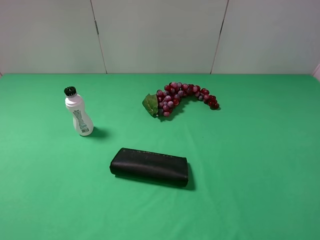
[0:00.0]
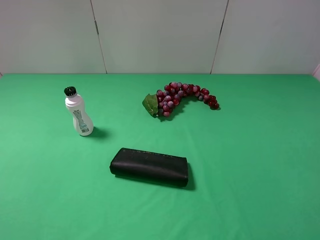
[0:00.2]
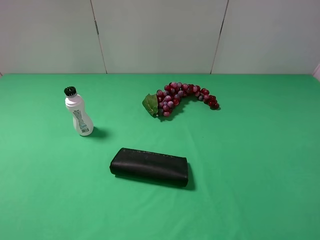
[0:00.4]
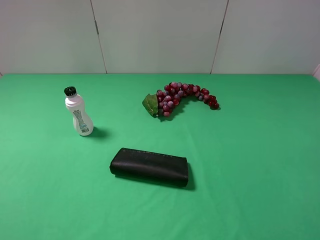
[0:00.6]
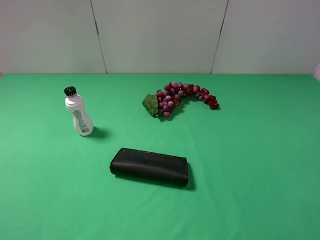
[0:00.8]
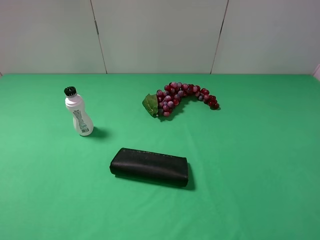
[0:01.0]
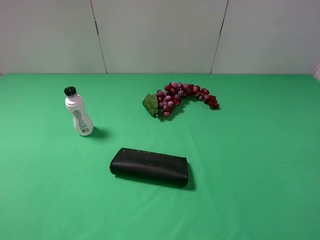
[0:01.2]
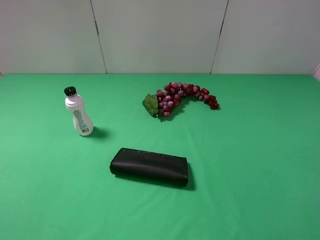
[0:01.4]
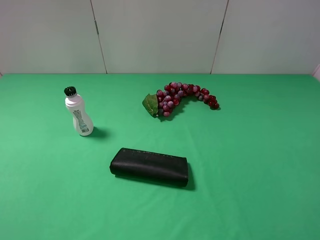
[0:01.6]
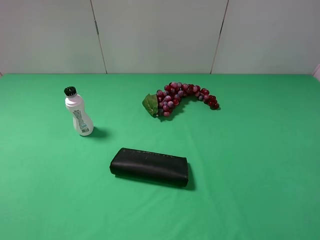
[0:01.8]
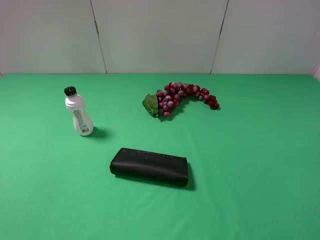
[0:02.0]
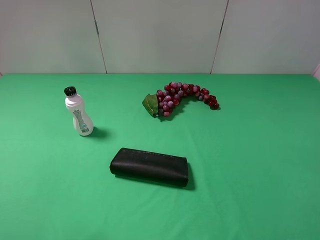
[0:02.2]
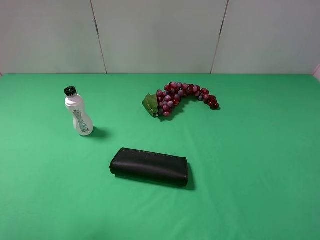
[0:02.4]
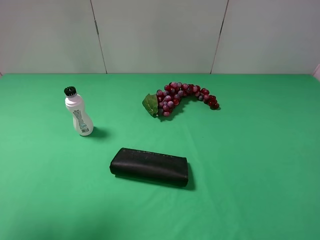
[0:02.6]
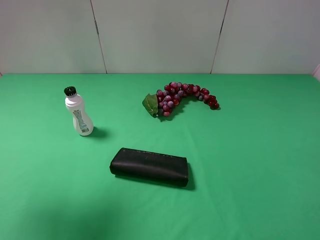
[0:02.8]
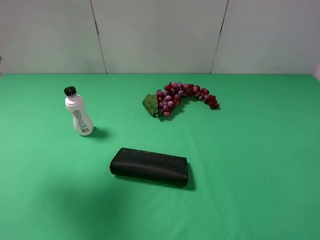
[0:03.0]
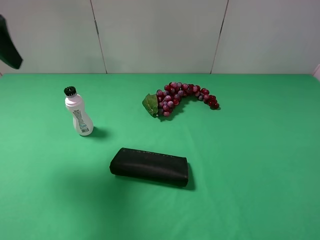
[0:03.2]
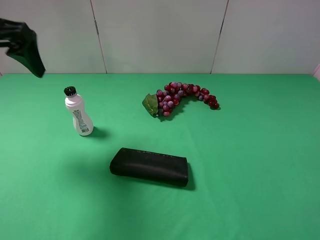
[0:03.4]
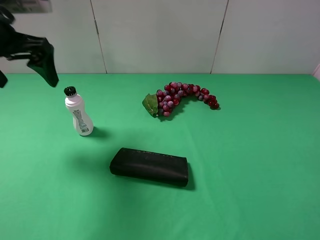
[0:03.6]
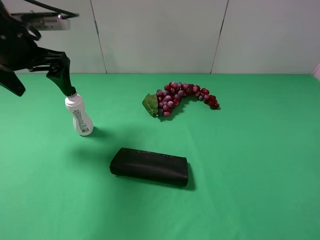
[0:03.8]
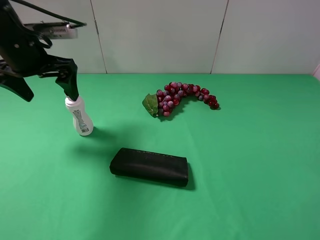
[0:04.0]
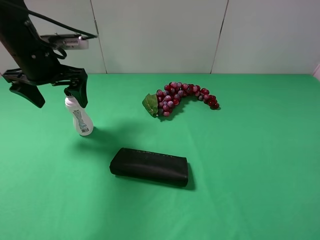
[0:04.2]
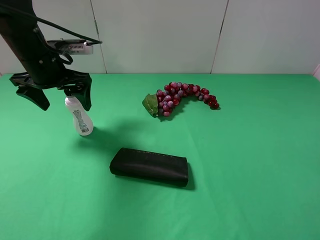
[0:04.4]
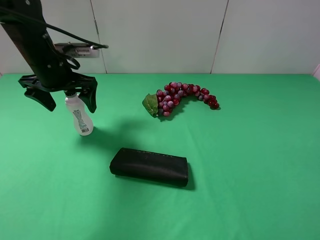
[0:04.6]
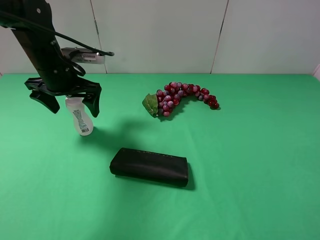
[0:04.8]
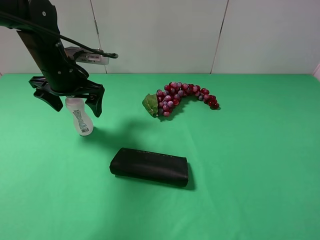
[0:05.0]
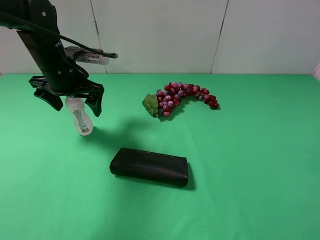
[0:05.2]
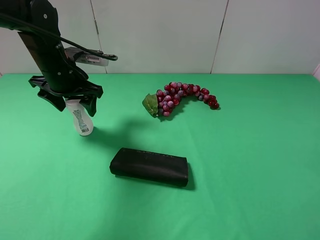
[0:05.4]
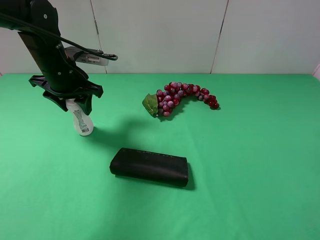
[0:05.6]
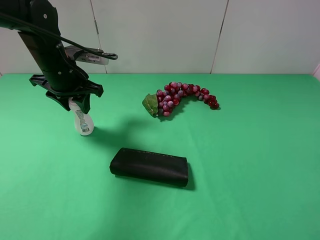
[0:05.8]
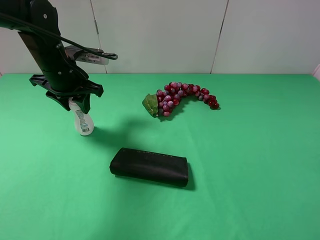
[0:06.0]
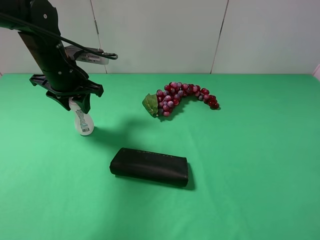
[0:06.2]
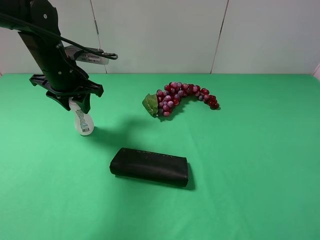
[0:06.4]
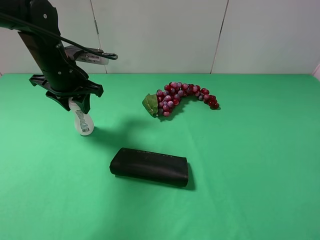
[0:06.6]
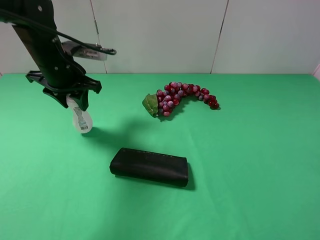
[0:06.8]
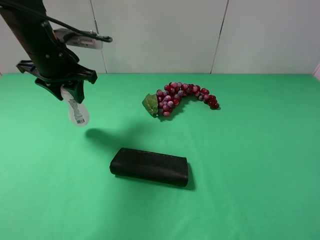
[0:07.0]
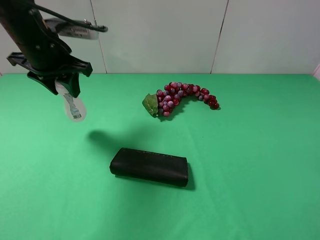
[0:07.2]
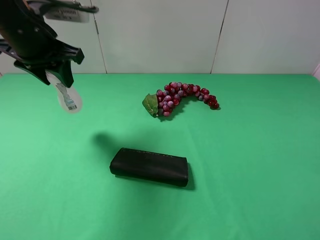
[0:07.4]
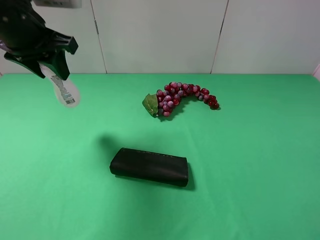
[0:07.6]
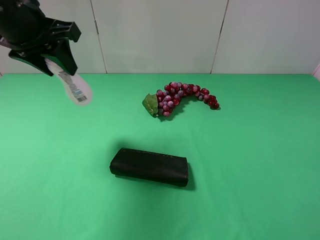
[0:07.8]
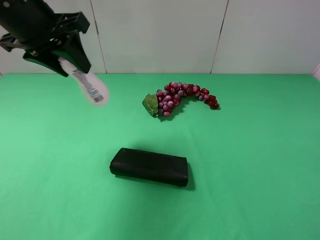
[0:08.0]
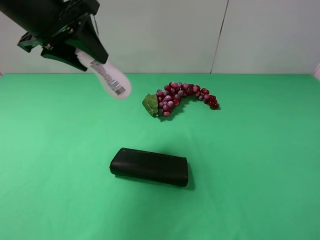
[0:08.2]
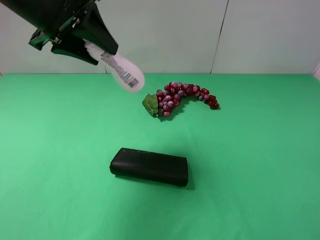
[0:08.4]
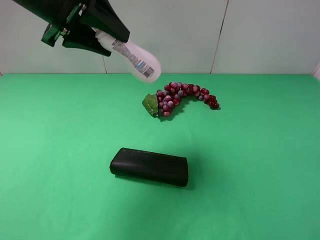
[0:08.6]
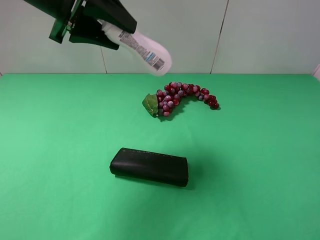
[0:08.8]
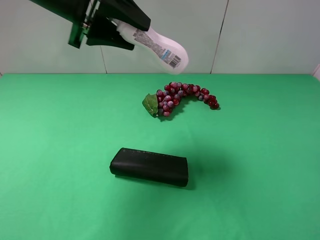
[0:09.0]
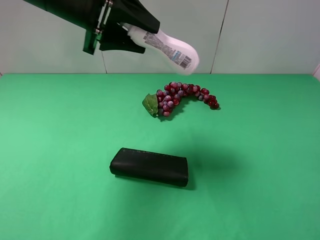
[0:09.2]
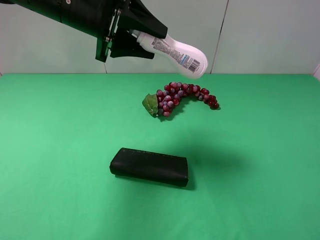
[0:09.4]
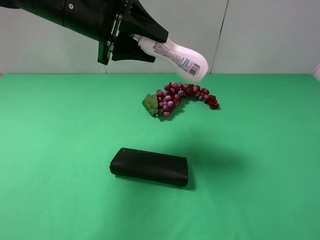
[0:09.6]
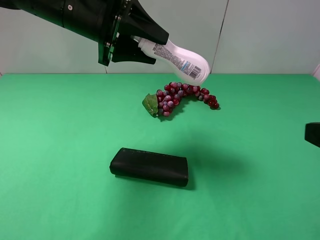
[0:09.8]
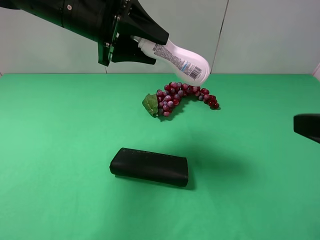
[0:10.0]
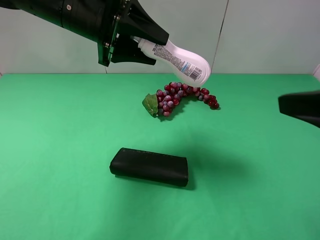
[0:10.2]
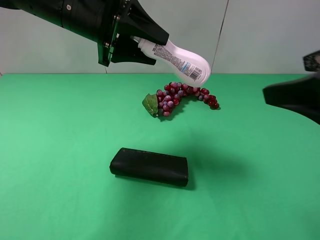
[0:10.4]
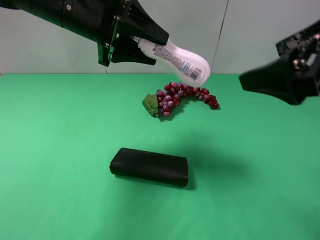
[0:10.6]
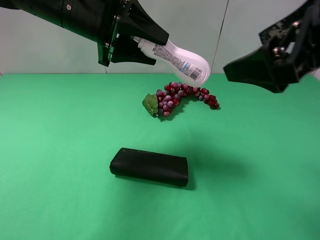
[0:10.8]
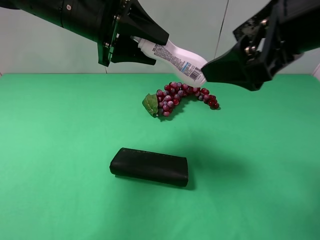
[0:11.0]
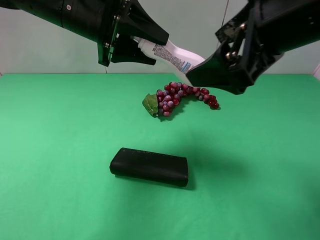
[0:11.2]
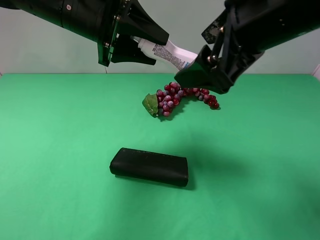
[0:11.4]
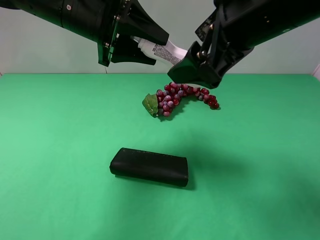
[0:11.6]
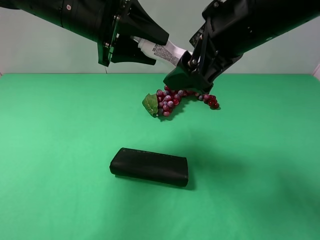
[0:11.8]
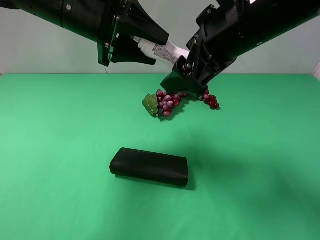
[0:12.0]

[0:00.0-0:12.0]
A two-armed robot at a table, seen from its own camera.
Task of the whole recording: use the left gripper to pick up the item and transfer it from the left gripper to the right gripper.
Step, 0:00.0 to 0:05.6: Use the left gripper to grab the cleaning agent on the left side of the table.
0:00.0 to 0:01.6: Neither gripper changes place.
0:01.6 to 0:03.0: The left gripper shifts roughly 20 cm forward.
0:03.0 to 0:04.4: The left gripper travels downward, forward and to the right by approximately 20 cm.
0:04.4 to 0:06.0: The left gripper closes up.
0:06.0 to 0:07.6: The left gripper goes roughly 15 cm upward and backward.
0:07.6 to 0:09.0: The left gripper is displaced to the right by roughly 5 cm.
0:09.0 to 0:10.4: The right gripper is displaced forward, to the left and upward by approximately 15 cm.
0:10.4 to 0:12.0: The right gripper heads to the left and forward, covering about 15 cm.

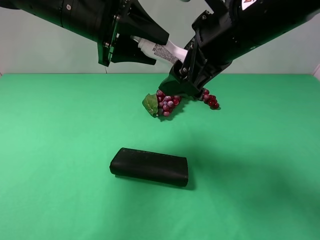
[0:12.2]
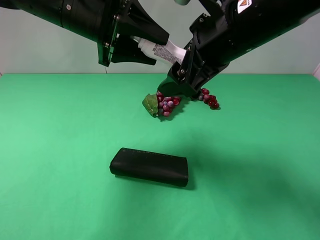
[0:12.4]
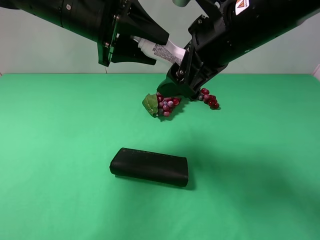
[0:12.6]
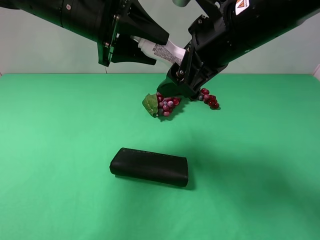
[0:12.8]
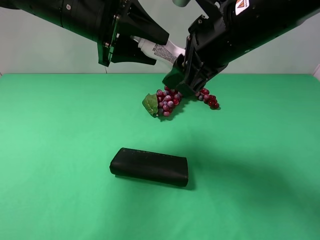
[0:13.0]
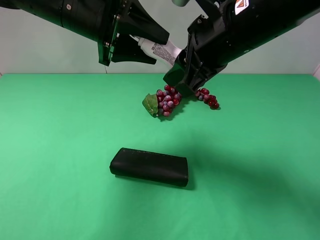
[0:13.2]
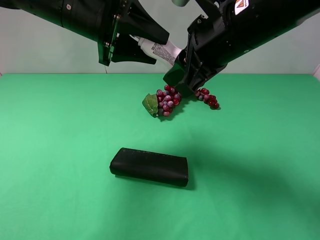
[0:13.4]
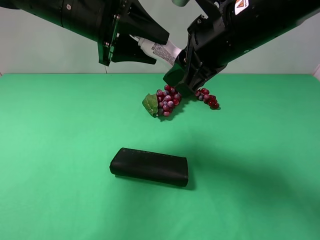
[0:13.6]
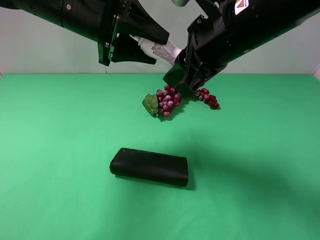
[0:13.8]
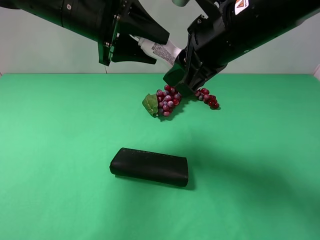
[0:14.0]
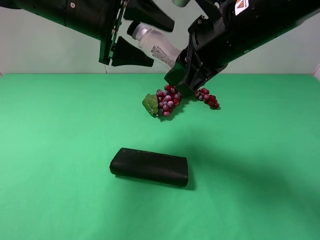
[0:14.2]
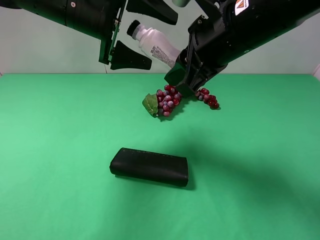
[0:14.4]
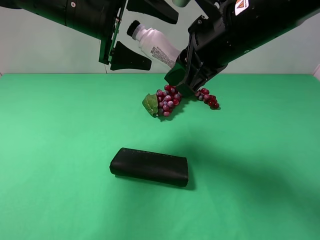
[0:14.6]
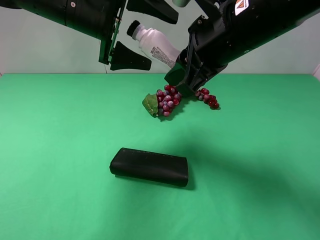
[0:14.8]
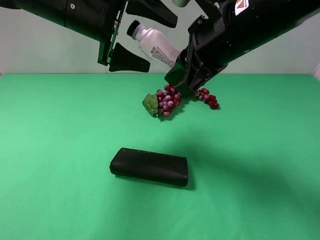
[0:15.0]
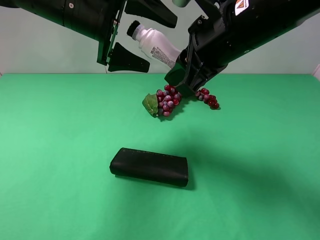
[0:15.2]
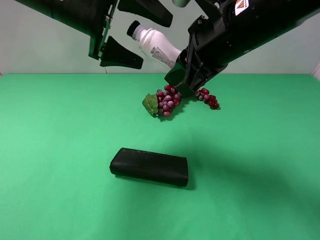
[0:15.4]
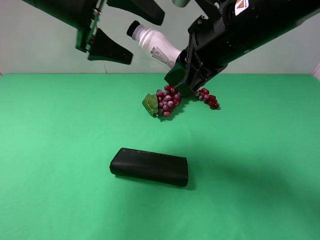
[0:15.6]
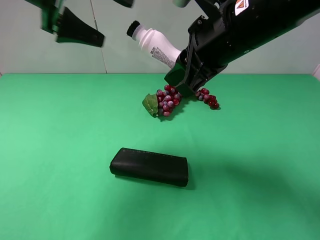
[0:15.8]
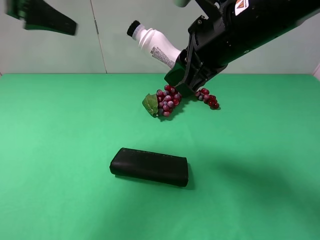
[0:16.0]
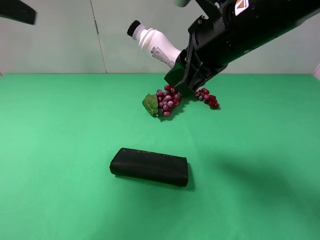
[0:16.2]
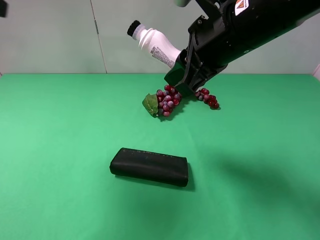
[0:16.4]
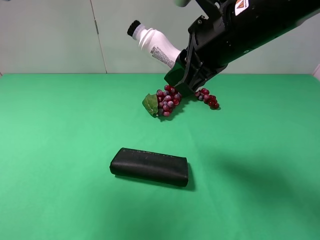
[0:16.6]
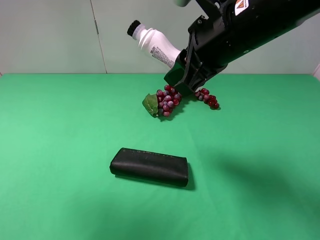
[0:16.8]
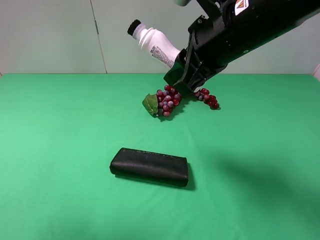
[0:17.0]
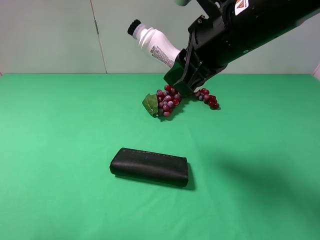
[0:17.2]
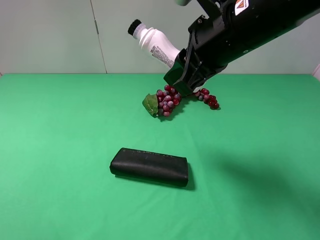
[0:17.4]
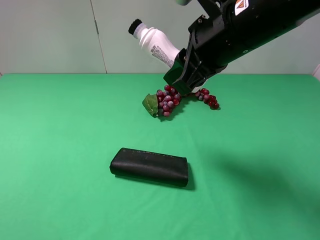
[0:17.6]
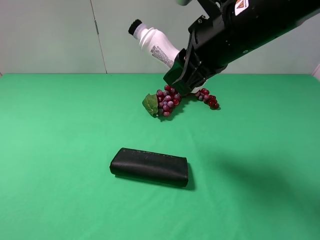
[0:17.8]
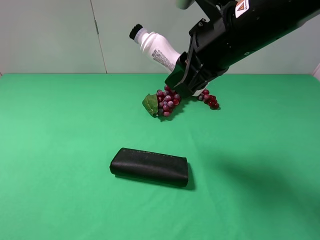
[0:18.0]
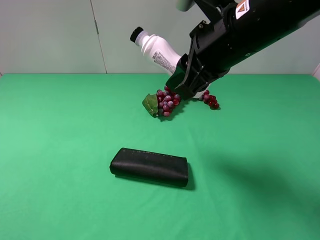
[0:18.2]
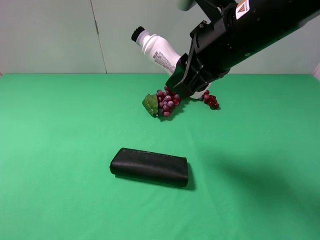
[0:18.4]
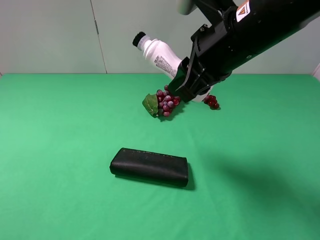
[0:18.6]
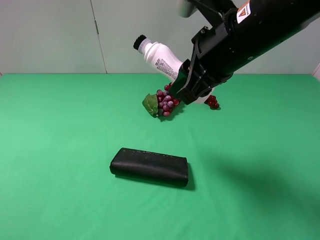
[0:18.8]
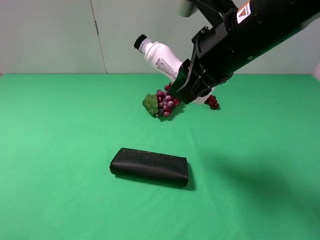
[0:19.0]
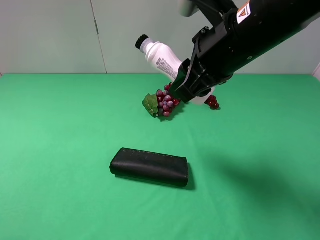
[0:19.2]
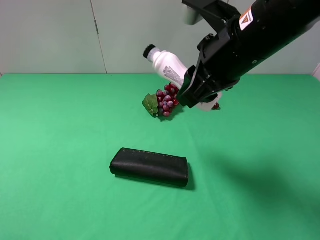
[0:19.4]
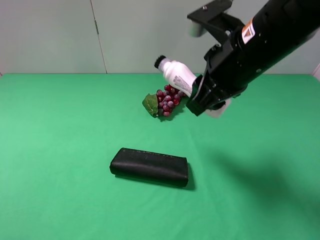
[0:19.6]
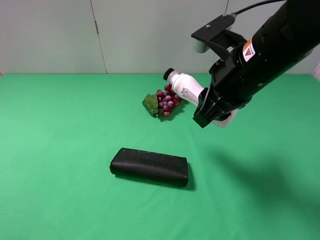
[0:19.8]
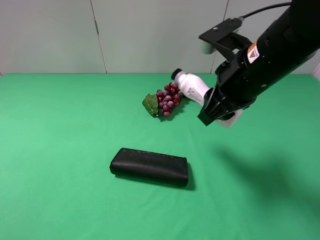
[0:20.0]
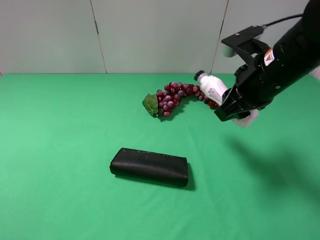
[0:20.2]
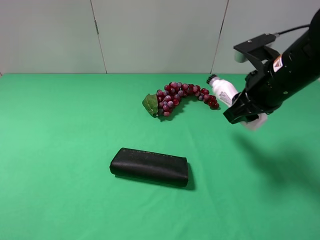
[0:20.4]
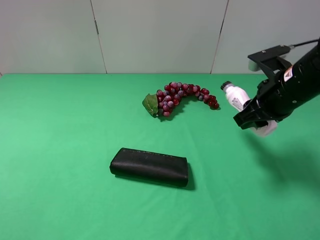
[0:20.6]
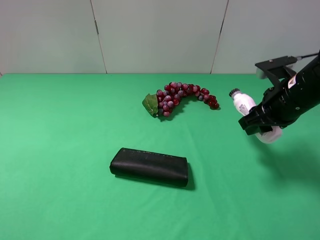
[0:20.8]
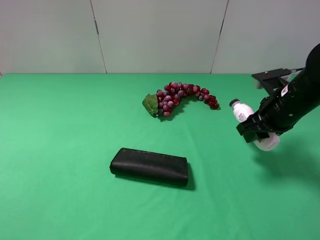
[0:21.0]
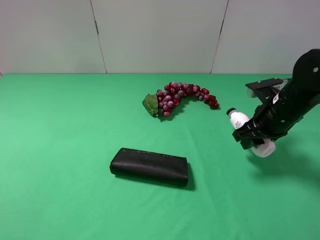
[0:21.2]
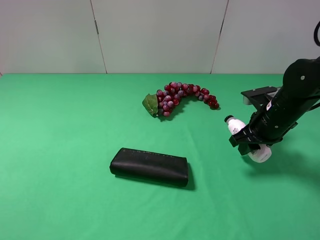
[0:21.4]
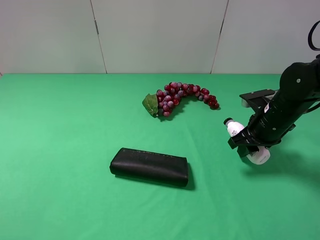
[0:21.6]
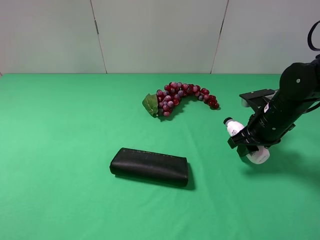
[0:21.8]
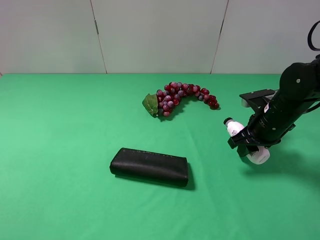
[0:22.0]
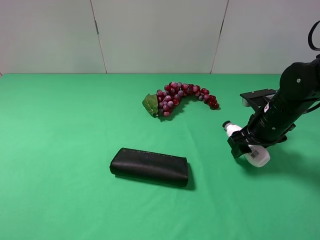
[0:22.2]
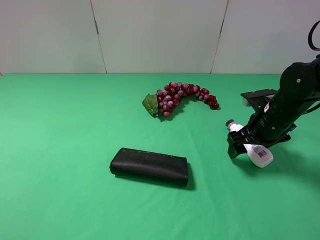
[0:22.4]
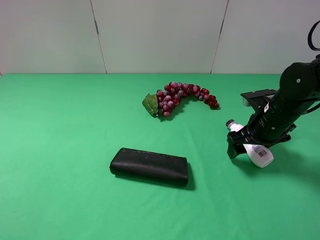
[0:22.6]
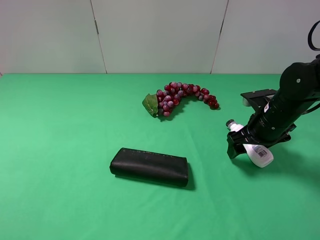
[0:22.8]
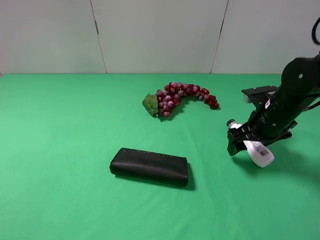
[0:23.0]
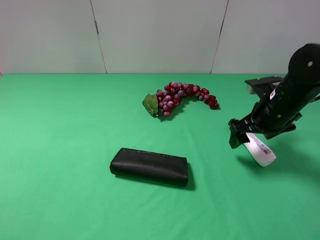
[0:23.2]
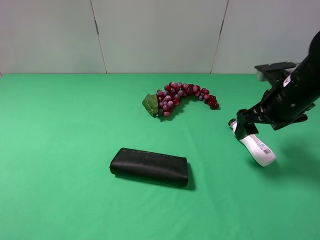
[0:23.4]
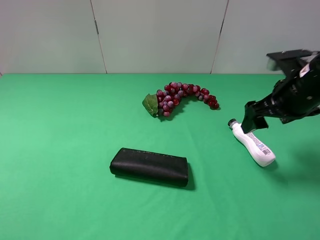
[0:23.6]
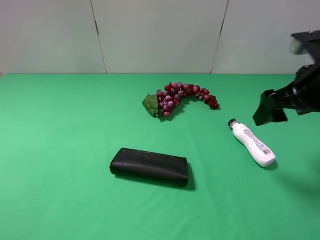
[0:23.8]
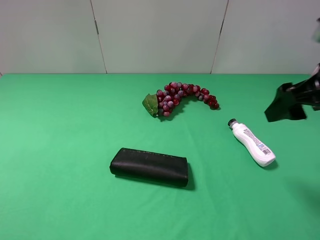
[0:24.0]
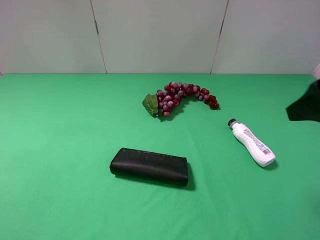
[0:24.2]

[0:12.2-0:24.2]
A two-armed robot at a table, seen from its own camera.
Task of the whole recording: use the left gripper to pick up the item and transfer it from the left gripper to the right gripper.
Step, 0:12.2 to 0:14.6: Pass the cleaning agent to the right gripper.
Step, 0:14.8 to 0:22.6: The right gripper places cleaning agent on the right side of the table.
0:12.2 to 0:13.8: The right gripper closes its fingers.
0:13.8 to 0:15.2: The left gripper opens.
0:15.2 to 0:16.6: The left gripper moves to the left, backward and upward, roughly 25 cm.
0:16.6 to 0:18.2: The left gripper shifts approximately 20 cm backward and downward.
0:18.2 to 0:19.8: The grippers move only a little.
0:19.8 to 0:21.2: The right gripper shifts about 15 cm downward, to the right and forward.
0:21.2 to 0:22.6: The right gripper opens.
0:22.6 to 0:24.2: The right gripper is displaced upward and backward by roughly 20 cm.
